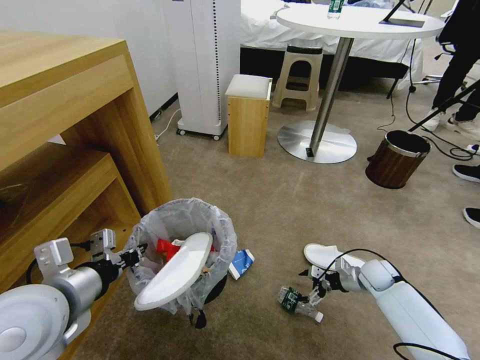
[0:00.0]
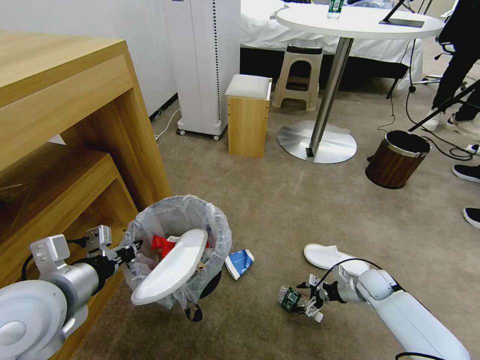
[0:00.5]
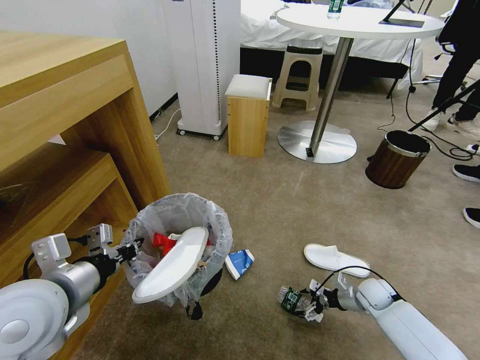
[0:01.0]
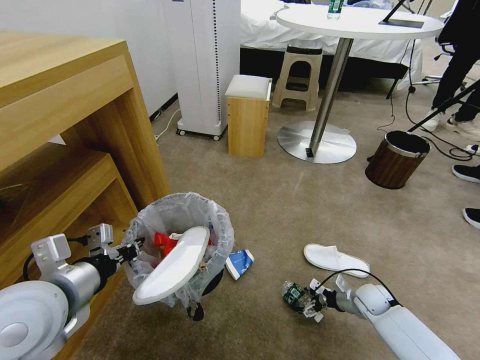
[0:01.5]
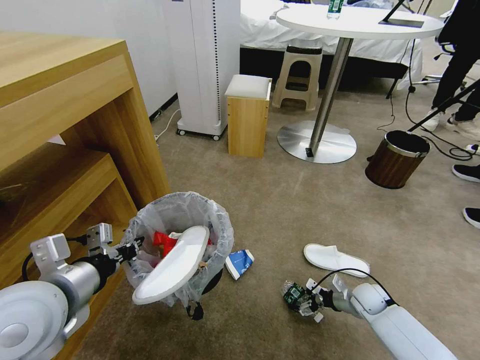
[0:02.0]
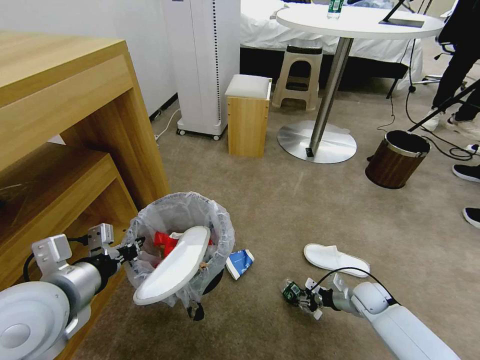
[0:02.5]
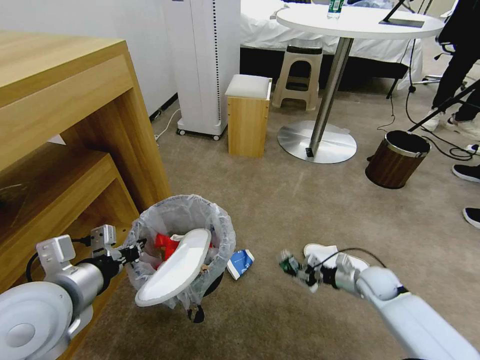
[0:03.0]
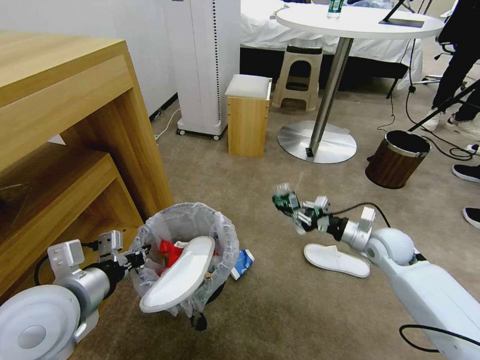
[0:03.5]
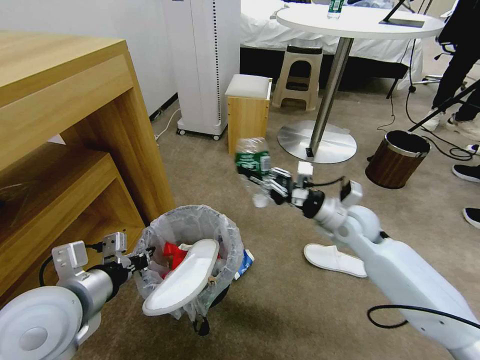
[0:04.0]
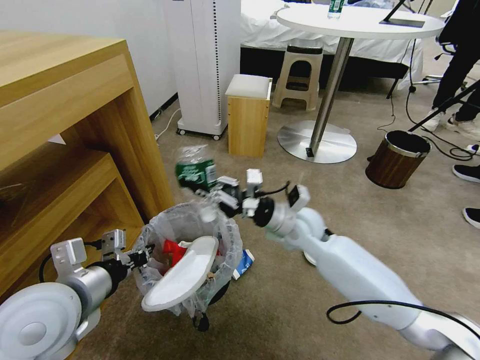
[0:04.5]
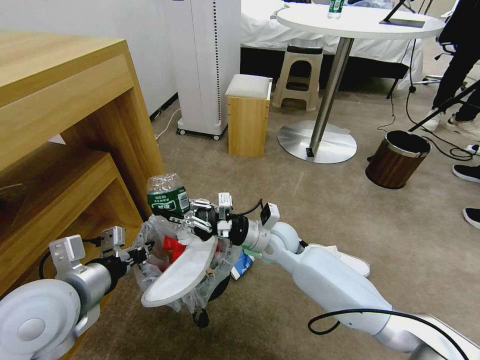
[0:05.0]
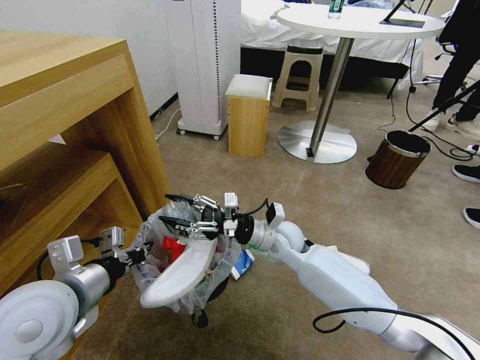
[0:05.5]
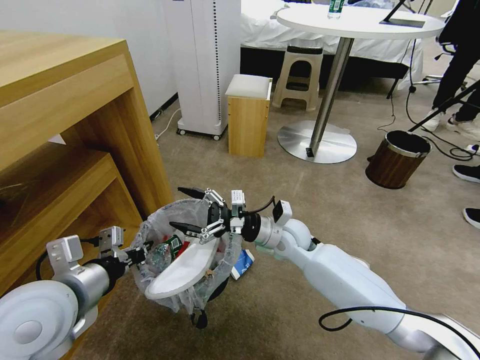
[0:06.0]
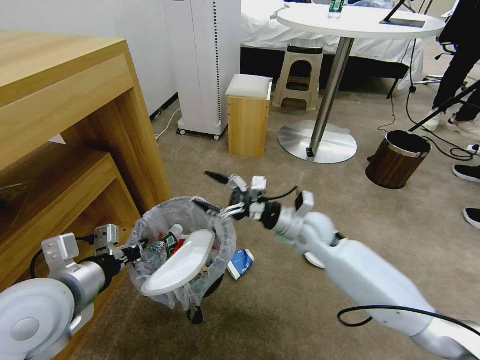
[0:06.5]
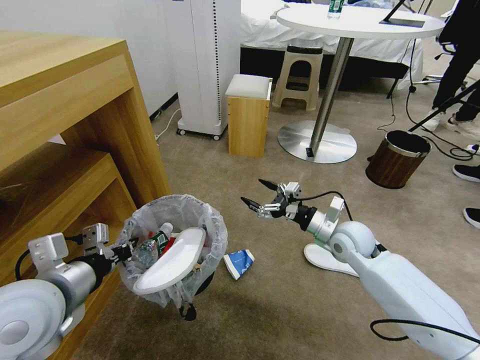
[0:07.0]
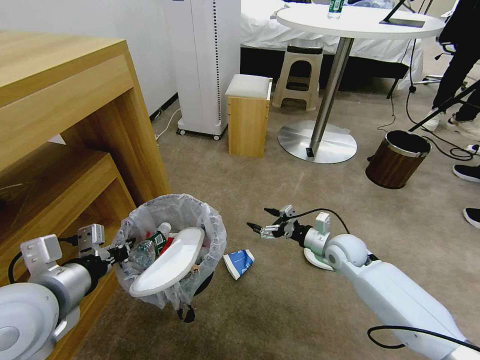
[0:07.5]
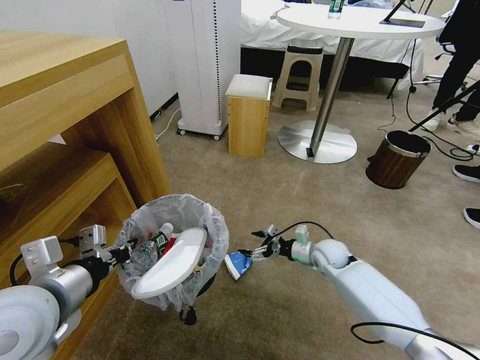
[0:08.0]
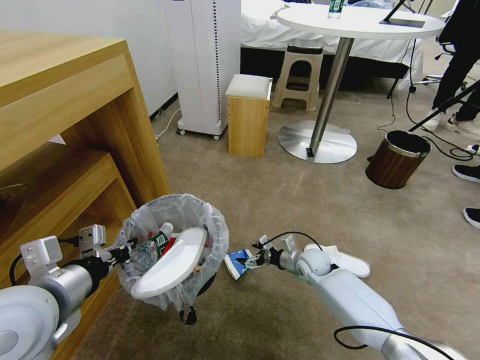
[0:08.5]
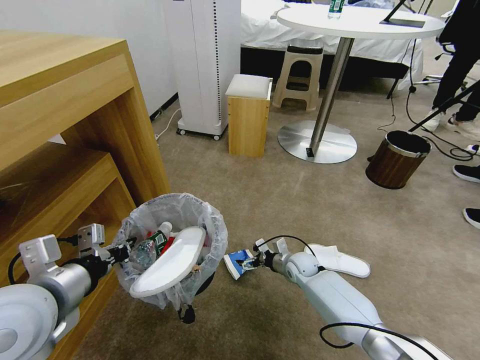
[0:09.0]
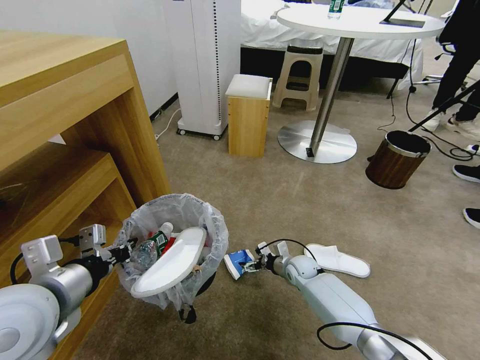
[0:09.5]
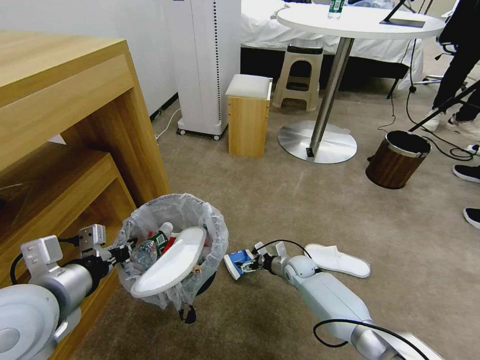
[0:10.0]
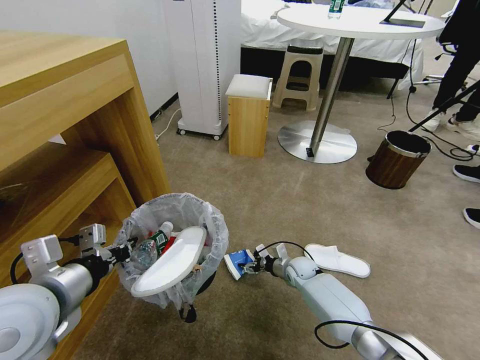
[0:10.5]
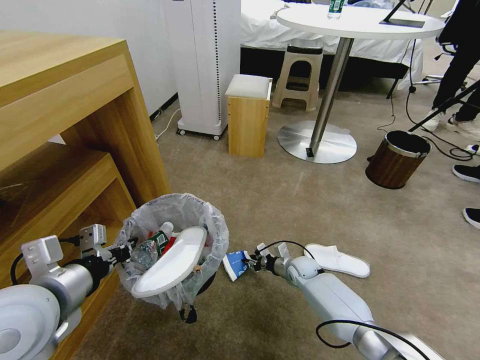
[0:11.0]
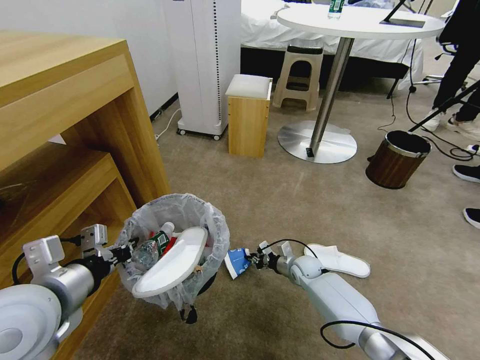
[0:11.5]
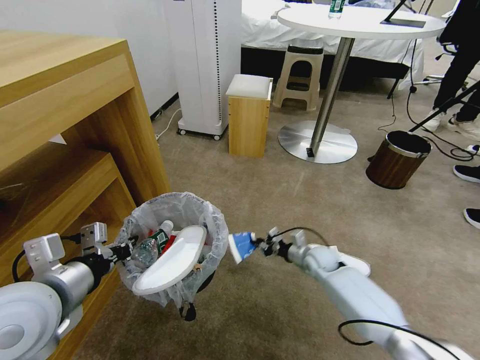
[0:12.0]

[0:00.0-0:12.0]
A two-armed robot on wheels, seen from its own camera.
Task of the whole recording: Pick up the trash bin and place the garbage on the floor into it.
0:00.0 to 0:02.0: The right gripper travels backward by some 5 cm.
0:02.0 to 0:04.0: The right gripper shifts roughly 30 cm upward and to the left, and closes its fingers.
0:04.0 to 0:06.0: The right gripper travels to the left by approximately 15 cm, and opens.
0:06.0 to 0:08.0: The right gripper heads to the right and downward, covering roughly 20 cm.
0:08.0 to 0:10.0: The right gripper goes approximately 10 cm downward and to the left.
0:10.0 to 0:12.0: The right gripper heads upward, covering roughly 5 cm, and closes its fingers.

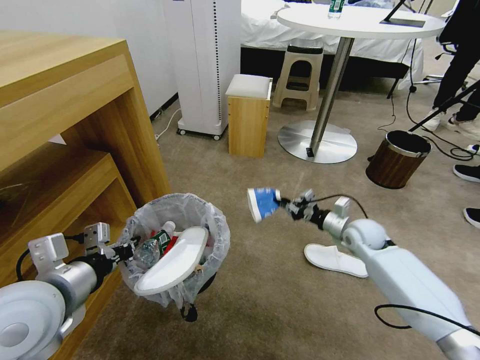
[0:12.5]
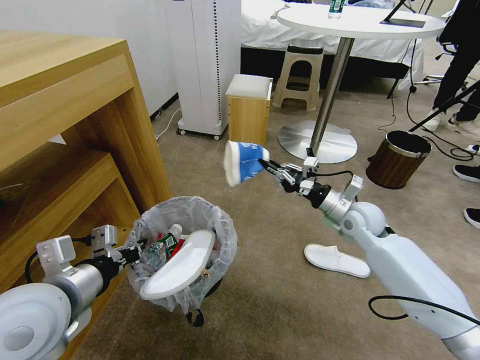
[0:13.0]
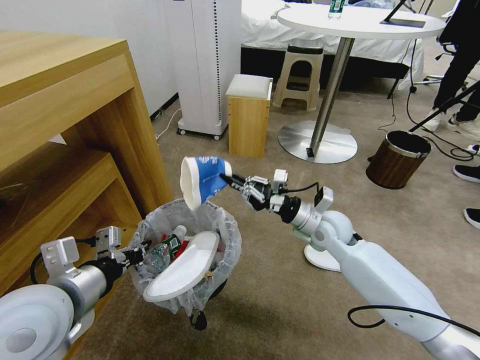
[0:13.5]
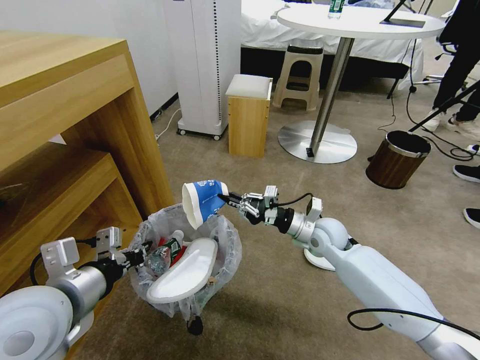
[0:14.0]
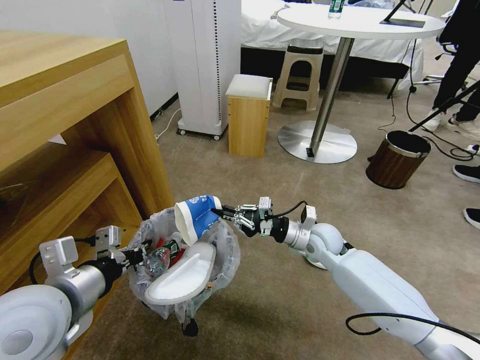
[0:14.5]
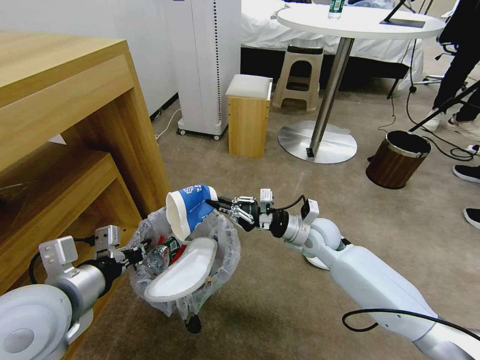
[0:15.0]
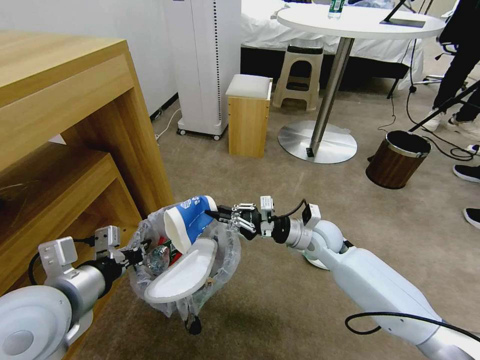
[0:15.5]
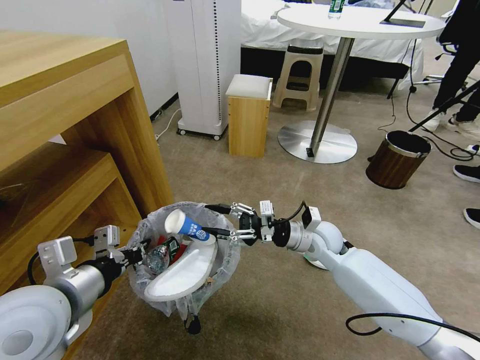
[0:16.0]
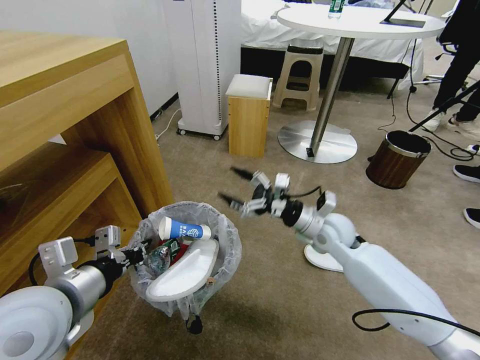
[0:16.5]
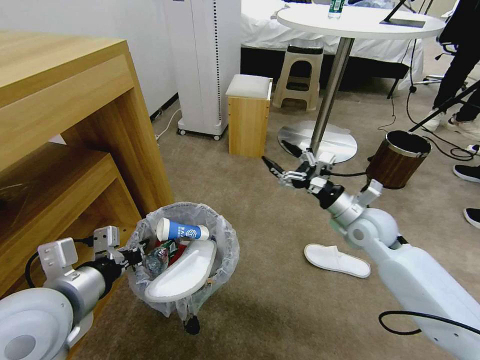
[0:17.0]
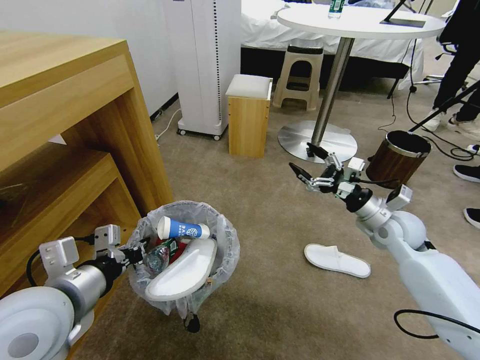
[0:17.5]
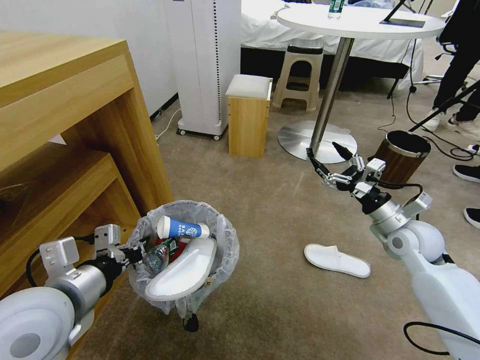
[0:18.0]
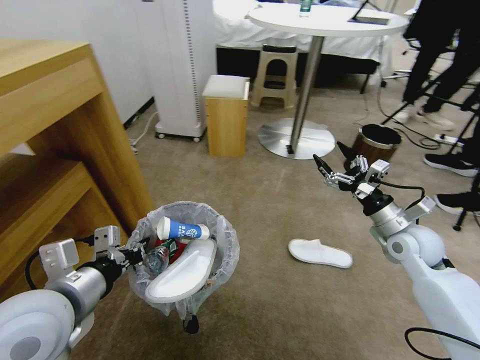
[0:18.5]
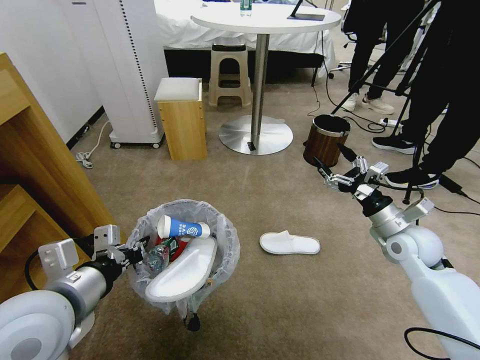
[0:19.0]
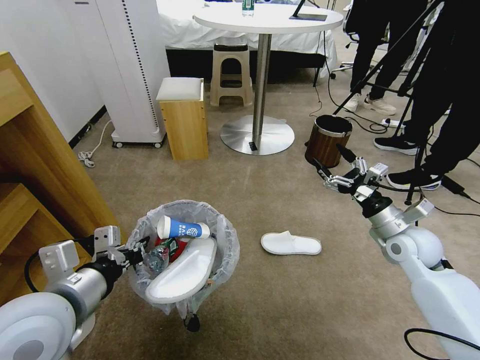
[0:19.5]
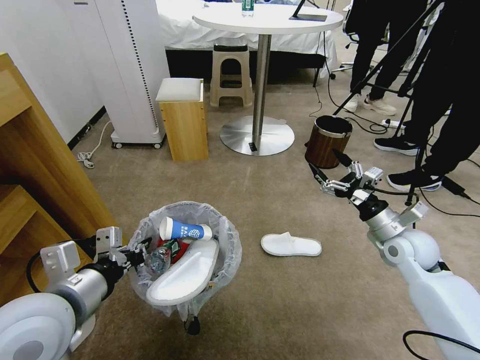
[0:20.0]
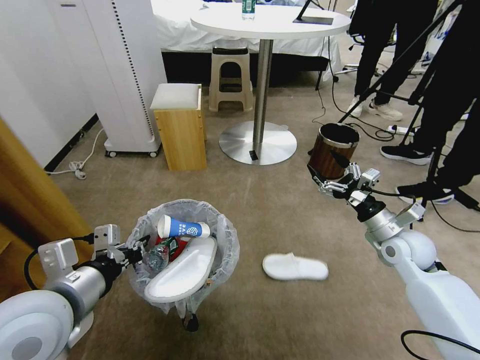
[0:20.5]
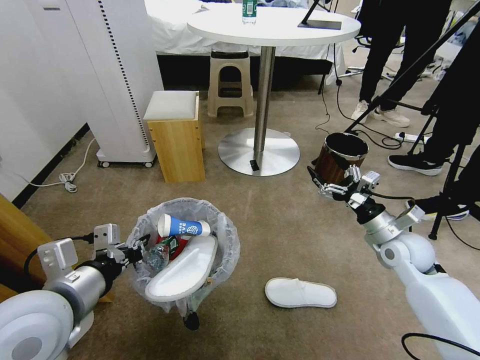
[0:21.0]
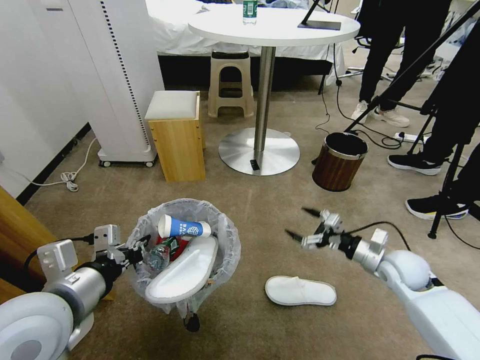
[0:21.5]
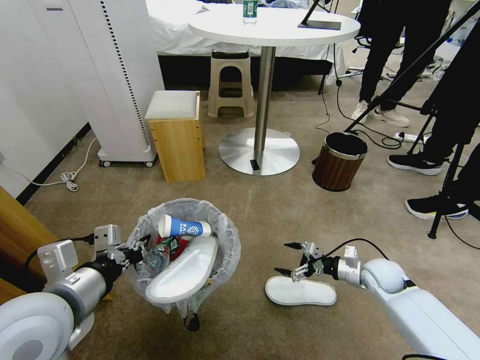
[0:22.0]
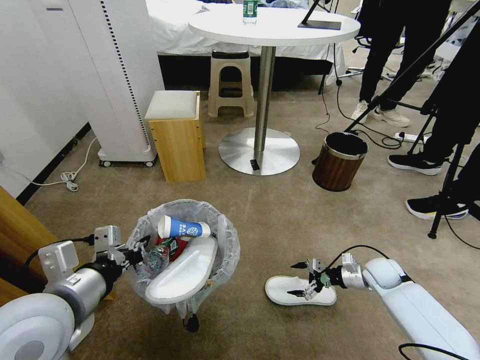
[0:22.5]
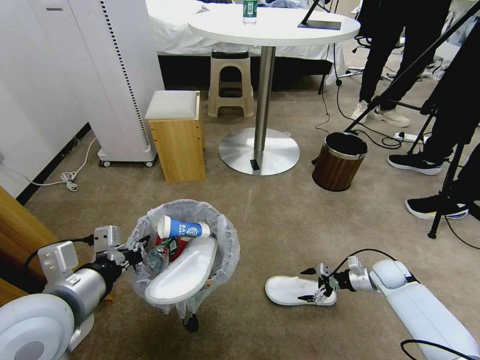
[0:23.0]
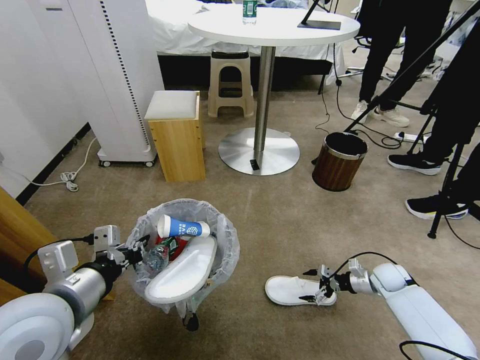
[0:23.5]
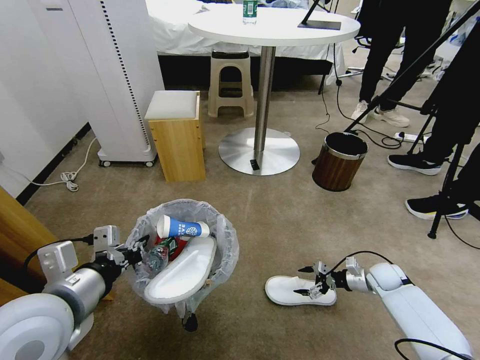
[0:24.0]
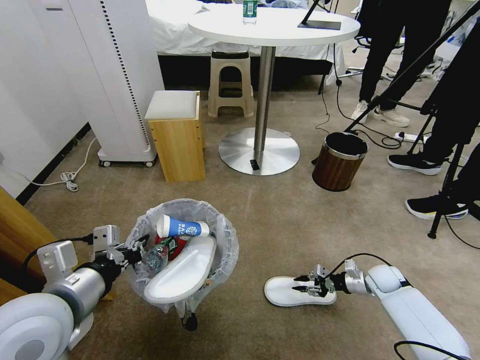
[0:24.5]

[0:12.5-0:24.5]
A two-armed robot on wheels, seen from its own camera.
Task of the whole recording: Pick up the trash bin and place the garbage on the floor into it.
0:12.5 to 0:14.5: The right gripper travels to the left by roughly 10 cm.
0:14.5 to 0:16.5: The right gripper shifts about 5 cm upward, and opens its fingers.
0:16.5 to 0:18.5: The right gripper is displaced to the right by some 15 cm.
0:20.5 to 0:22.5: The right gripper travels downward by some 15 cm.
0:22.5 to 0:24.5: The right gripper closes.

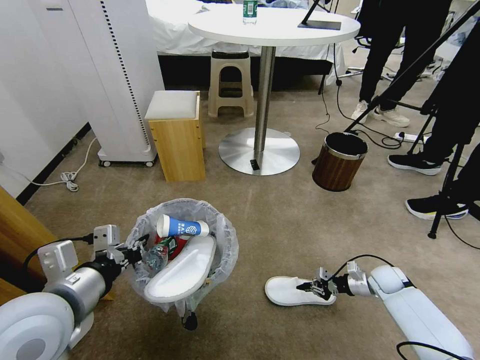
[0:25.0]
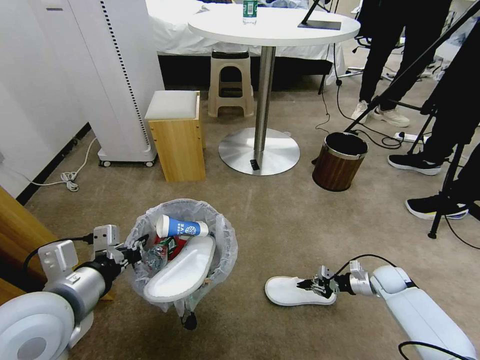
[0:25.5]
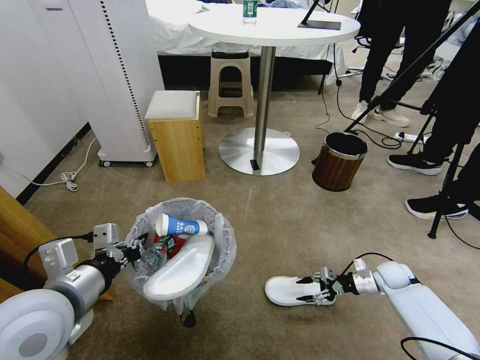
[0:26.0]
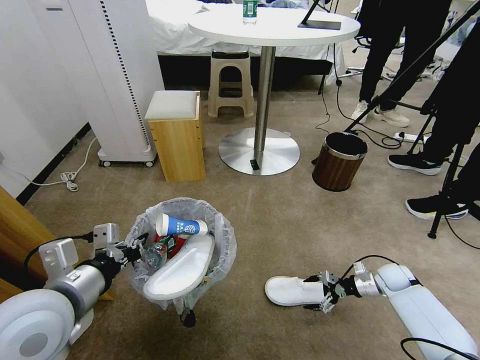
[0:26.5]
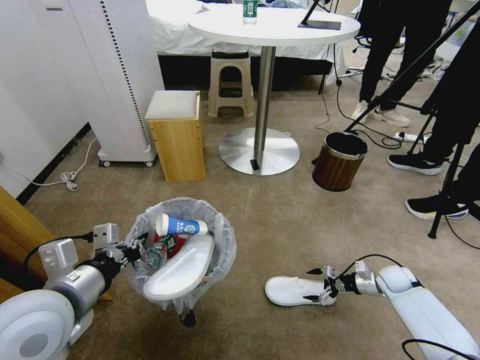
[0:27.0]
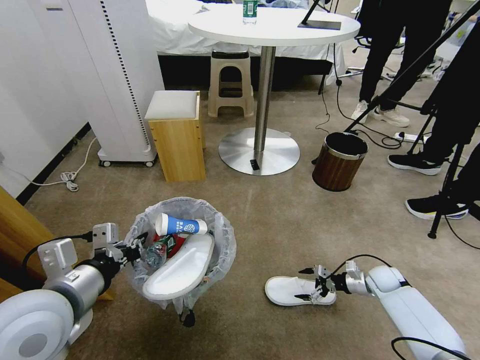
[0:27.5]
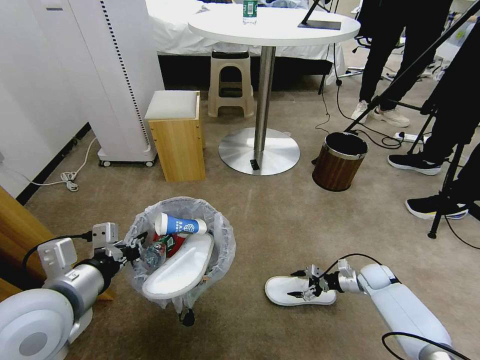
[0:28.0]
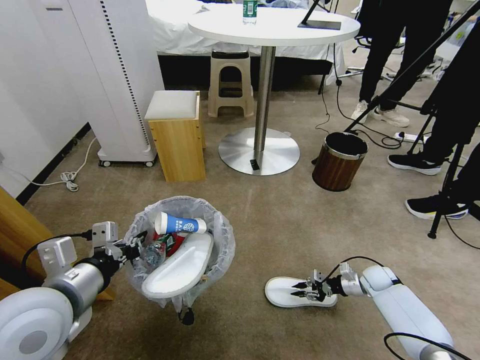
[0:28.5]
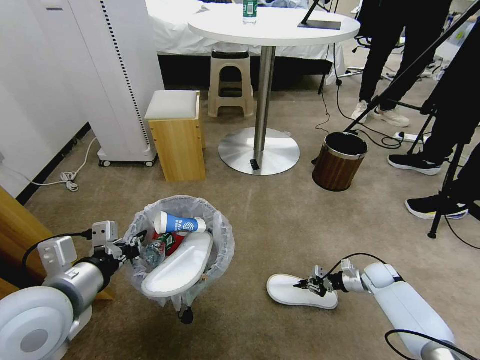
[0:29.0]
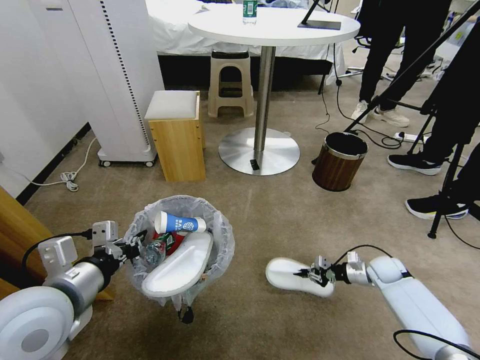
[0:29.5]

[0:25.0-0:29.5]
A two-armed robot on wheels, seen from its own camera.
Task of the whole recording: Pick up the trash bin and place the garbage on the floor into it.
0:25.0 to 0:27.0: The right gripper opens up.
0:27.0 to 0:29.5: The right gripper closes.
